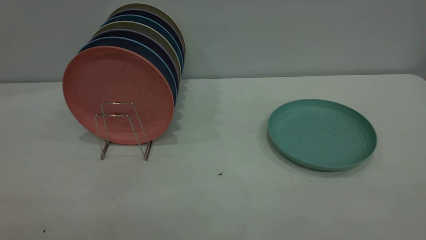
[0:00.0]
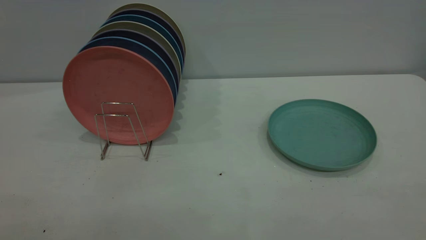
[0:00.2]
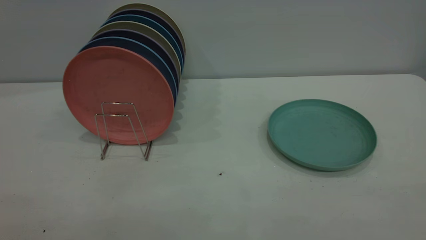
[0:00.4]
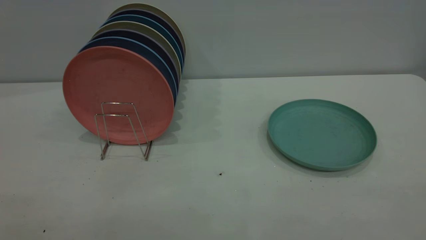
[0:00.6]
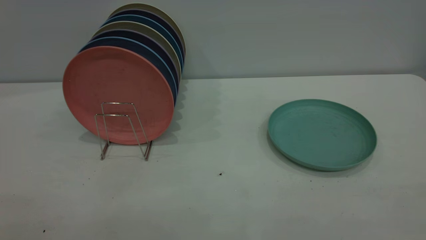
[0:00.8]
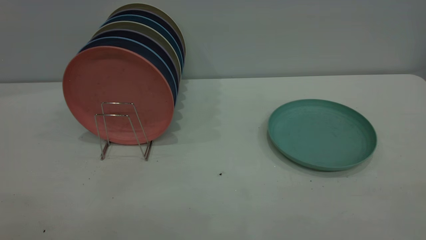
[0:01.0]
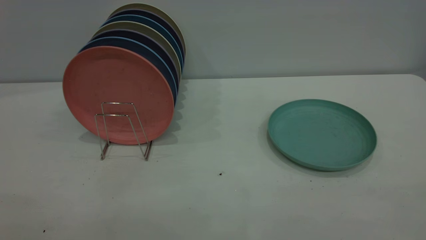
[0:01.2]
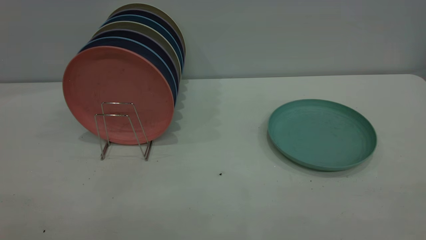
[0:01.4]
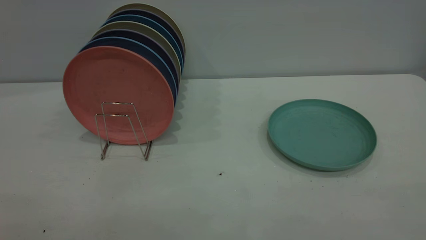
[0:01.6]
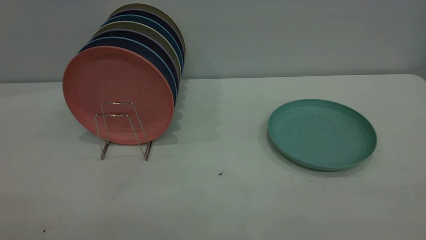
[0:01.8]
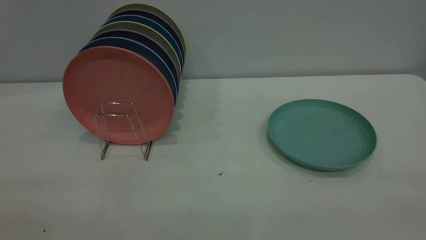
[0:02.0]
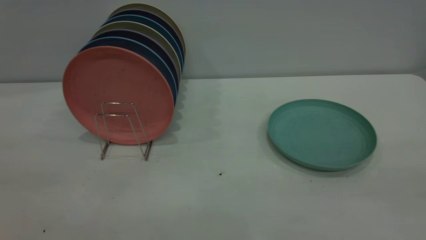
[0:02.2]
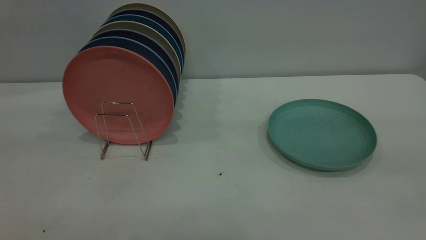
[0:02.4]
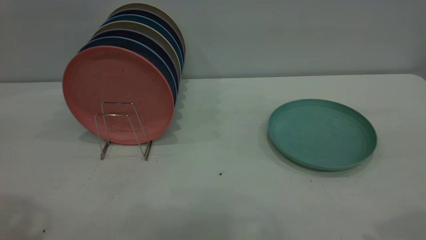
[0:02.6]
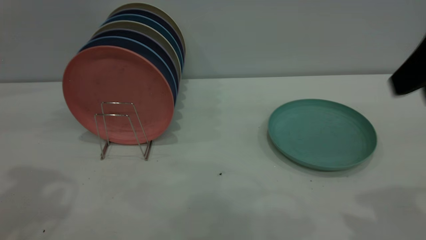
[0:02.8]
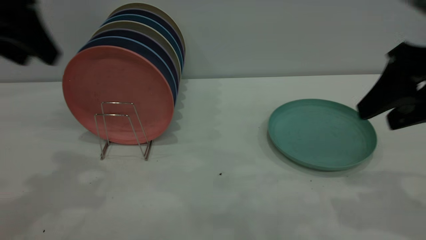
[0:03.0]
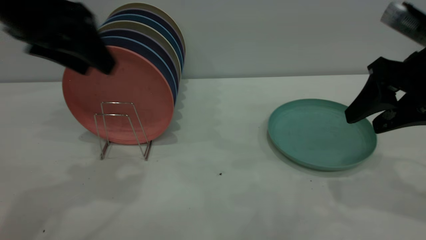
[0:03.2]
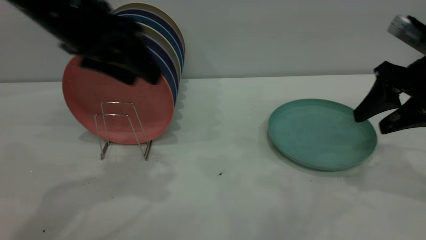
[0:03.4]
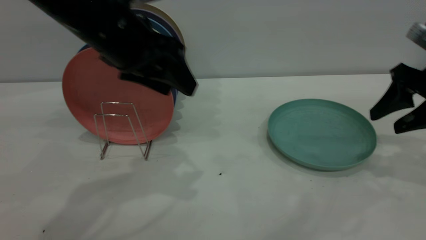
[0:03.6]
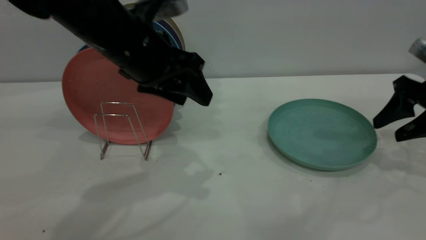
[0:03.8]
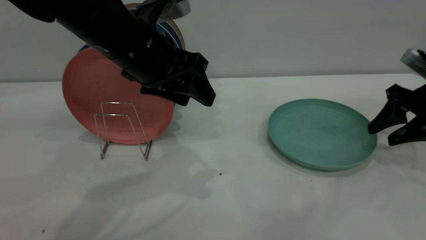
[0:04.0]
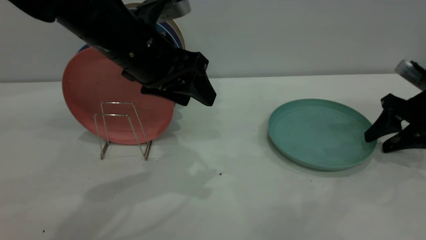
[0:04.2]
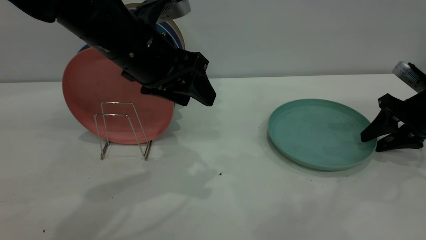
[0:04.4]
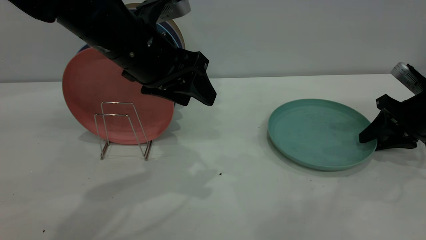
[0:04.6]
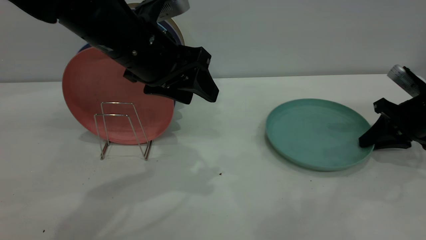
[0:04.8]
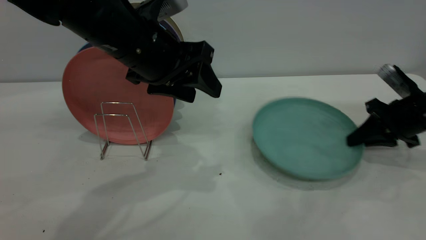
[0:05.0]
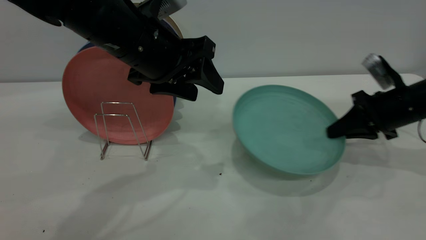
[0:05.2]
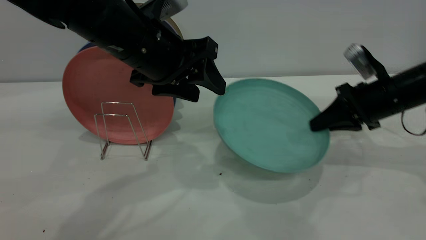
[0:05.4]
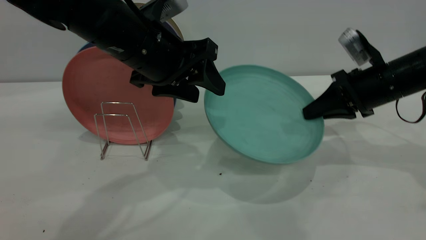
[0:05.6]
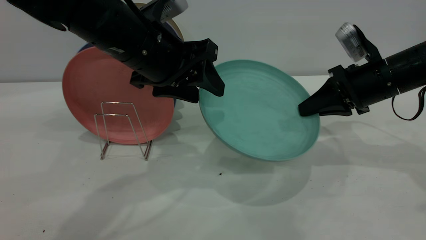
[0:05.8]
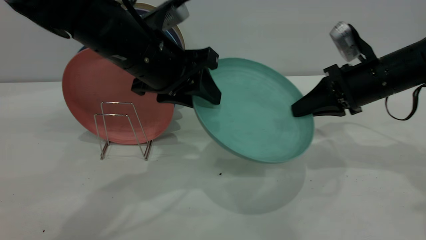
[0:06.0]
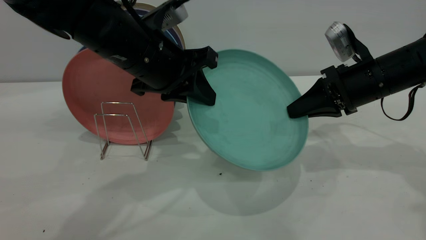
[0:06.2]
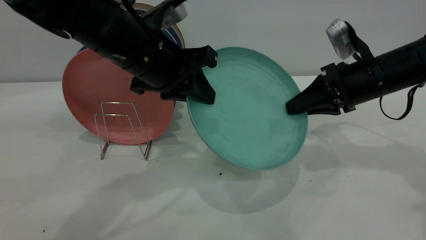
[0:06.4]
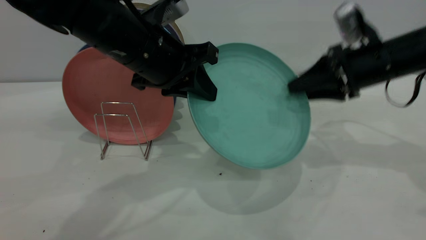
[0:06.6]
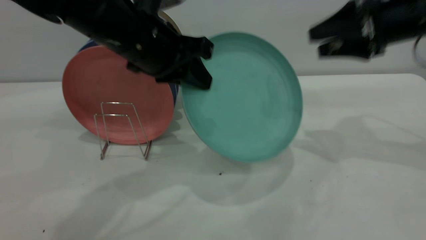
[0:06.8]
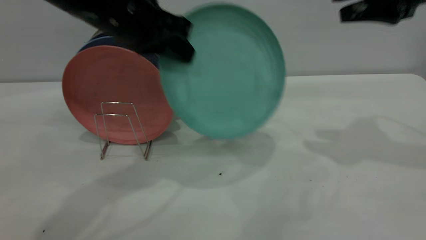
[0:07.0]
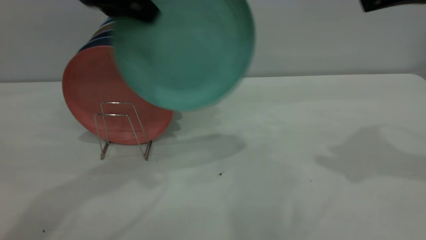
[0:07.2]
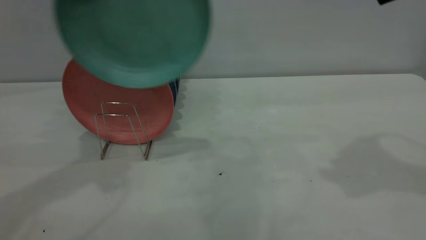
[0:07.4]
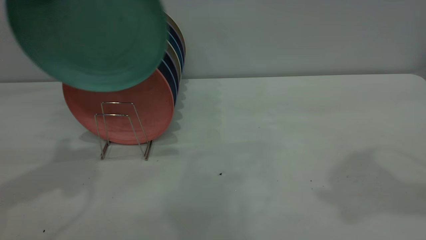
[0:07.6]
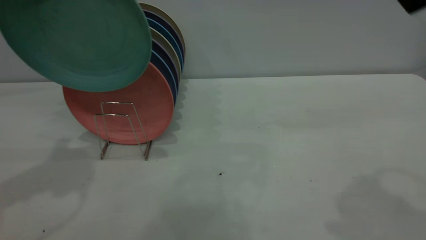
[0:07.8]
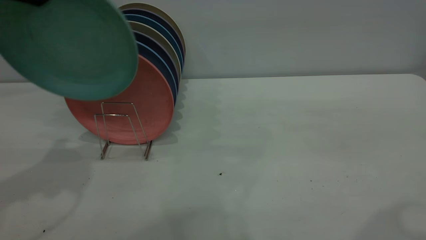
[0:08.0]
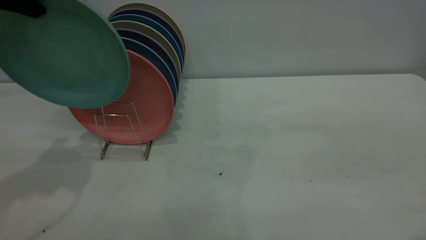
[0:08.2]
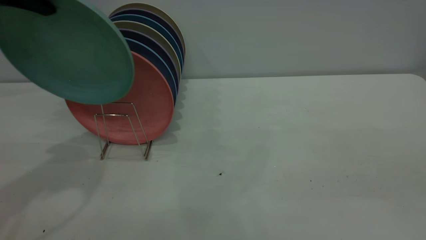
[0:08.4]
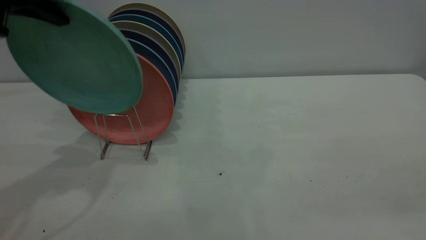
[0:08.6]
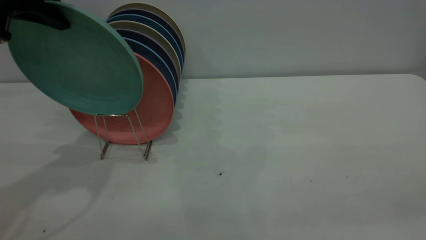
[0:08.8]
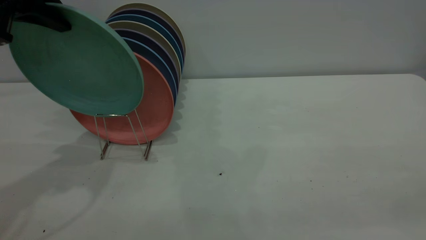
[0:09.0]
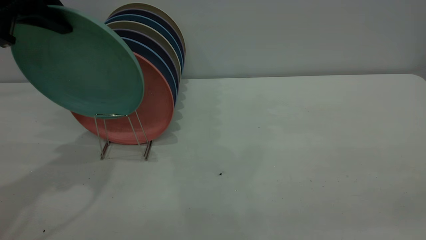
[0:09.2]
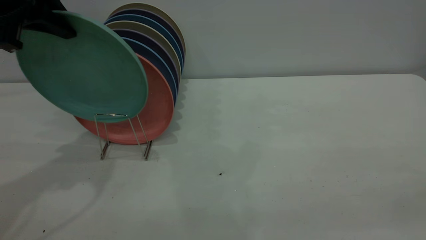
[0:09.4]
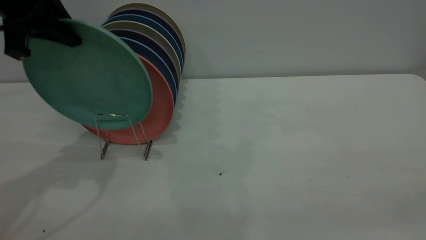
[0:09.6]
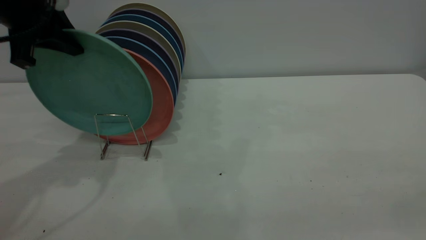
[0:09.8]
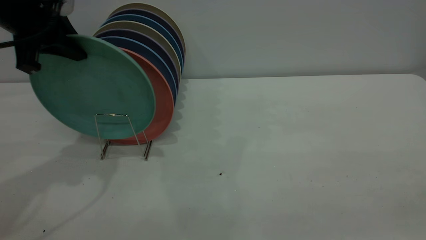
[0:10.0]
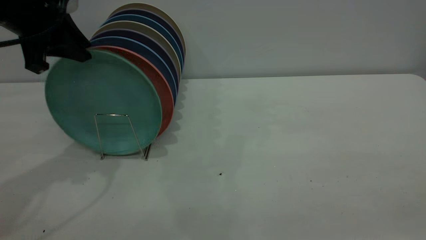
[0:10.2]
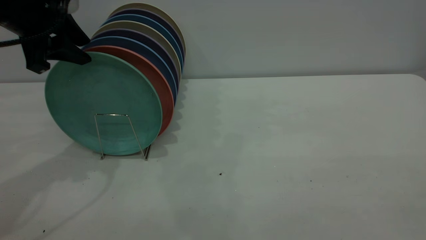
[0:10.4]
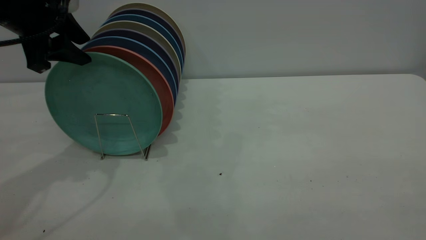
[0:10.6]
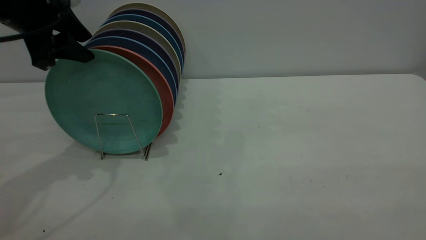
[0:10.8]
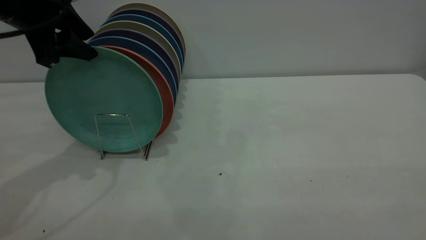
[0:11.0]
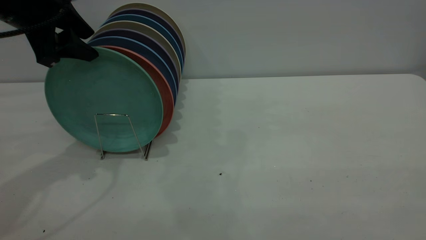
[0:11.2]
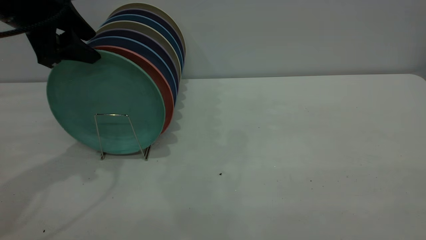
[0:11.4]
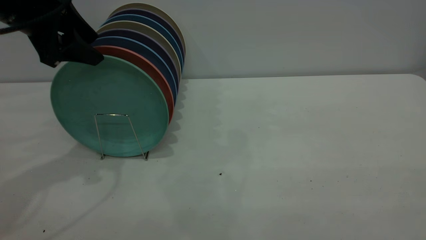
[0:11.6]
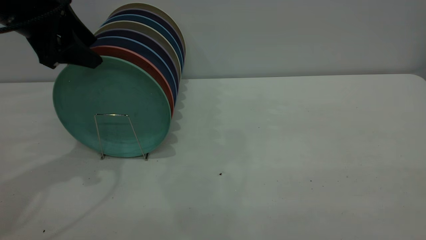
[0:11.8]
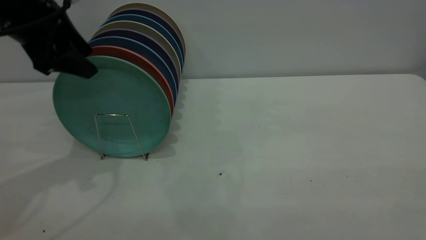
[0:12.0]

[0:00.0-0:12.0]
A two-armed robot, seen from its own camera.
Task of the whole recording: the right gripper grasp the green plate, the right gripper pass the green plate to the left gripper, and the left gripper place the green plate on the plate rack.
Step, 0:00.0 to 0:05.0: Pick up the plate with the right gripper.
Step, 0:05.4 to 0:06.6: Pass the plate from the right gripper to the left gripper.
0:00.0 to 0:01.6: Neither gripper changes place.
0:01.6 to 0:03.0: Both grippers travel together forward, approximately 30 cm.
0:03.0 to 0:04.4: The right gripper moves downward, forward and to the right, about 20 cm. The left gripper heads to the right and downward, covering approximately 15 cm.
0:04.4 to 0:06.0: The left gripper closes. The right gripper moves to the left and upward, roughly 15 cm, and closes its fingers.
0:06.0 to 0:07.6: The left gripper heads to the left and upward, covering approximately 25 cm, and closes, while the right gripper moves upward and backward, roughly 25 cm, and opens.
0:07.6 to 0:09.0: The right gripper travels backward by some 25 cm.
0:09.0 to 0:10.4: The left gripper moves downward, some 5 cm, and opens up.
0:10.4 to 0:12.0: There are only small adjustments of the grippers.

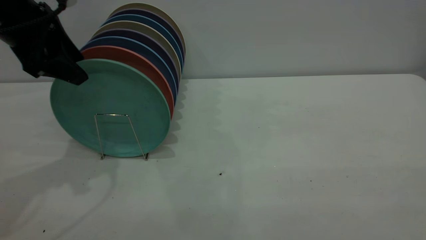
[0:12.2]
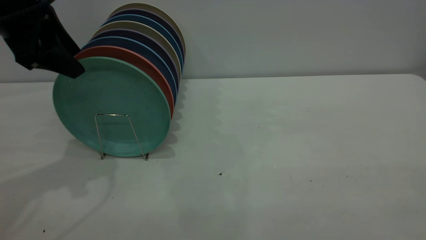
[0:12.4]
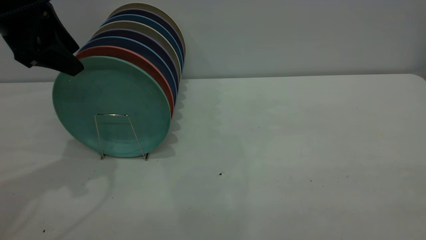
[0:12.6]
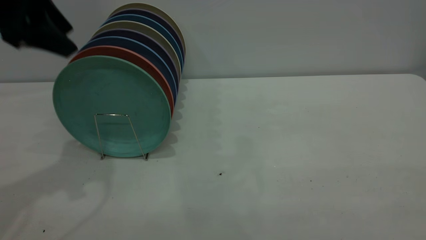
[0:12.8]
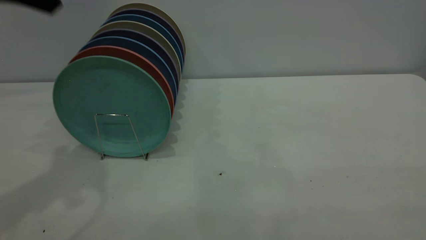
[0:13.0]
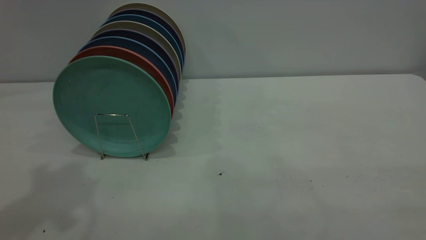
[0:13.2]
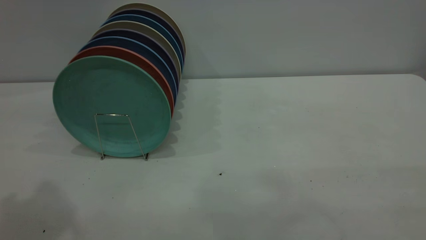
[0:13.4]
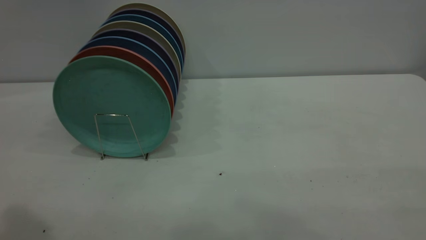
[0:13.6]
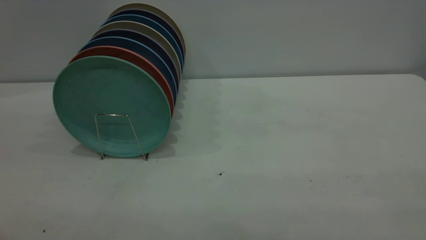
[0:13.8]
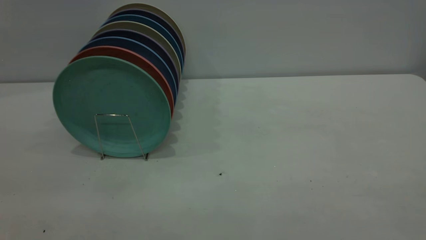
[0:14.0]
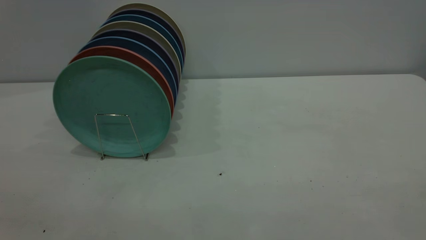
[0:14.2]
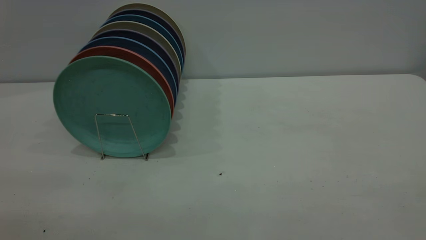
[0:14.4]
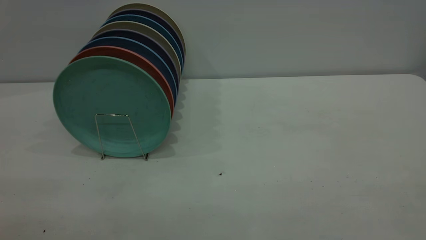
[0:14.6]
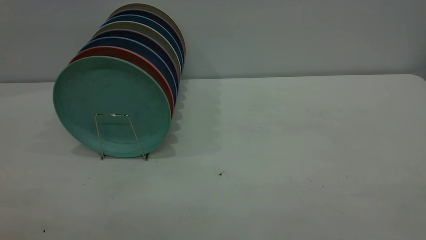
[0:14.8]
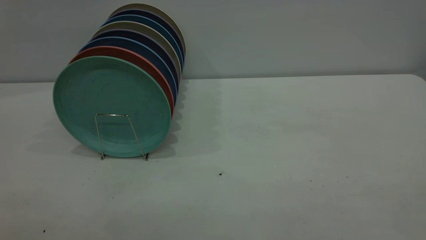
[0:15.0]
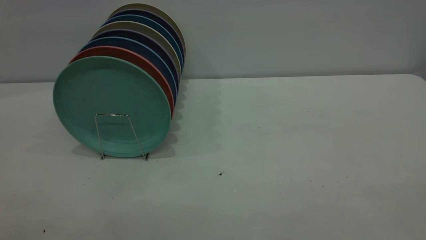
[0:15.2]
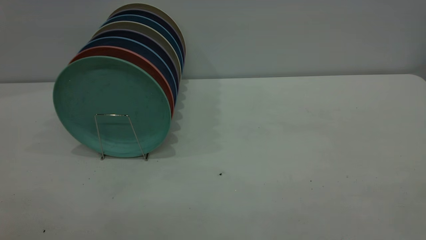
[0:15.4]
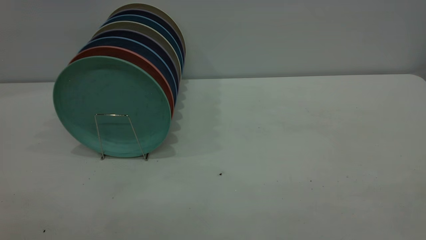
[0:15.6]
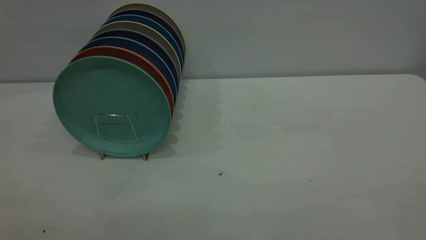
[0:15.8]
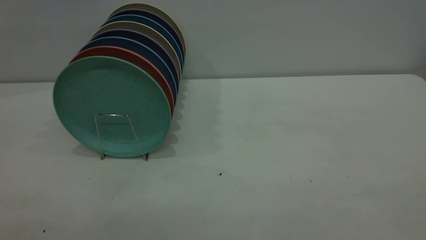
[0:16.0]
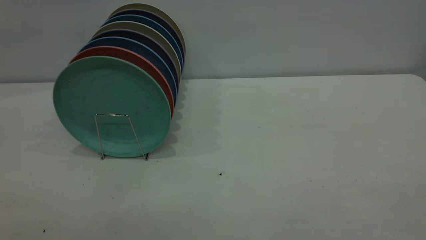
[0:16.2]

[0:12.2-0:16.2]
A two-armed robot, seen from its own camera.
Task of the whole recording: the right gripper grasp the green plate, the right gripper pass the green plate to the left gripper, and the left gripper place the green plate on the plate rack.
0:12.2 to 0:13.6: The left gripper is displaced backward and upward by approximately 25 cm.
0:14.8 to 0:16.2: Both grippers stay put.
